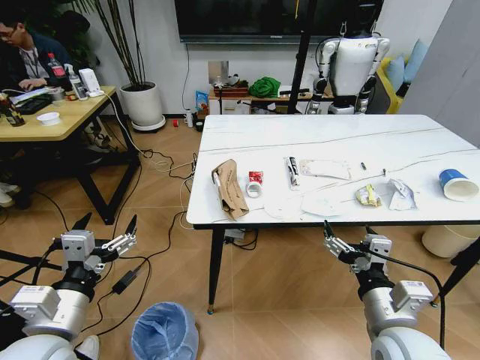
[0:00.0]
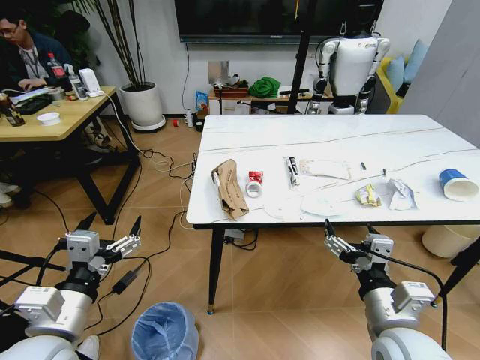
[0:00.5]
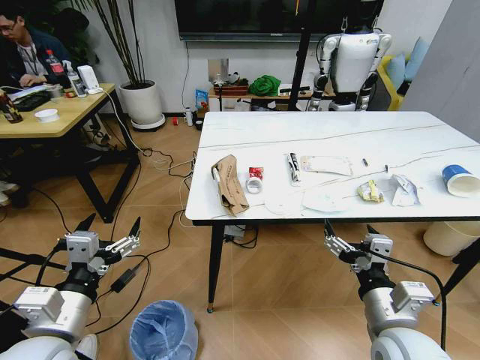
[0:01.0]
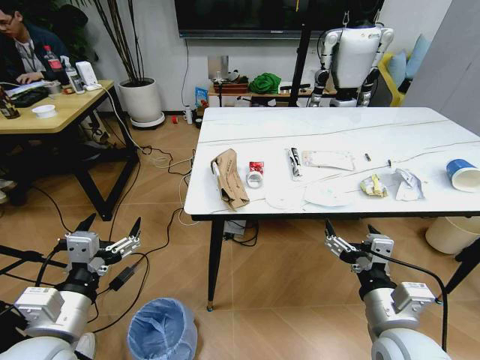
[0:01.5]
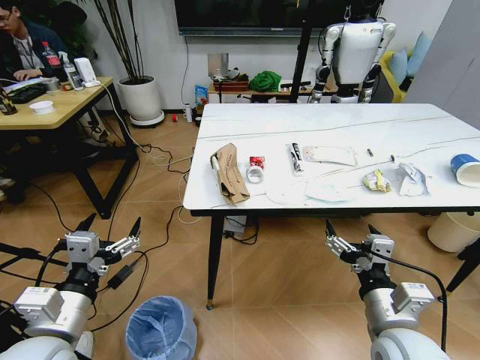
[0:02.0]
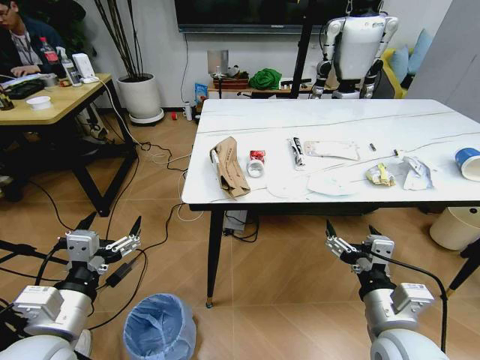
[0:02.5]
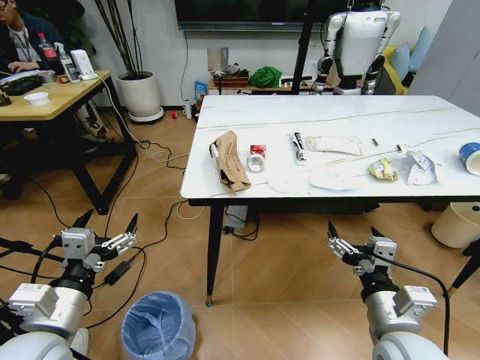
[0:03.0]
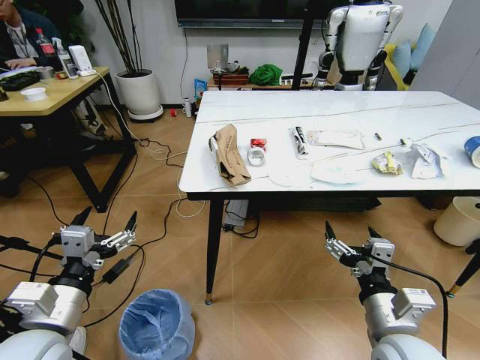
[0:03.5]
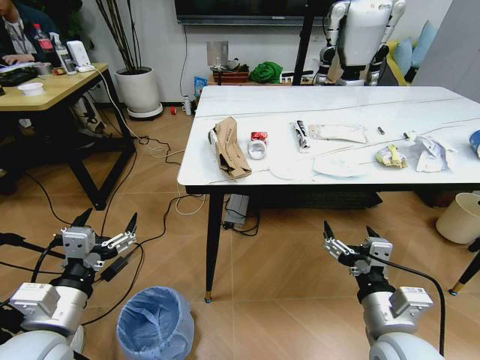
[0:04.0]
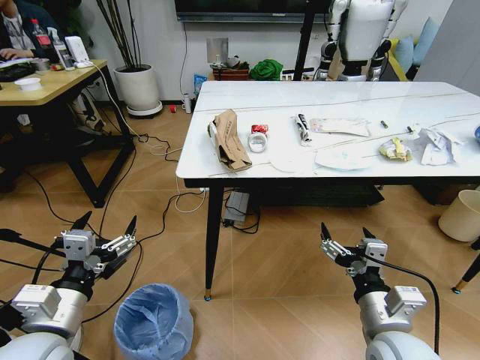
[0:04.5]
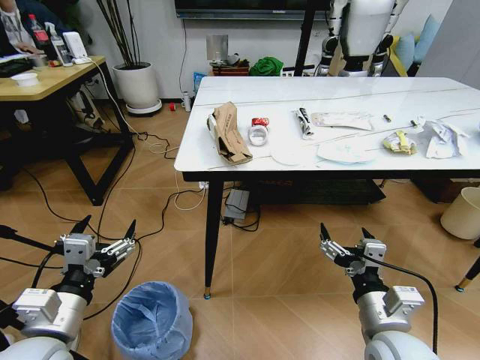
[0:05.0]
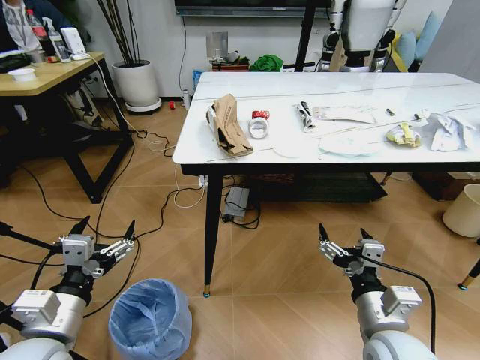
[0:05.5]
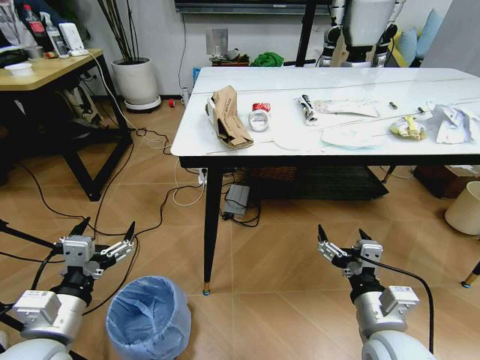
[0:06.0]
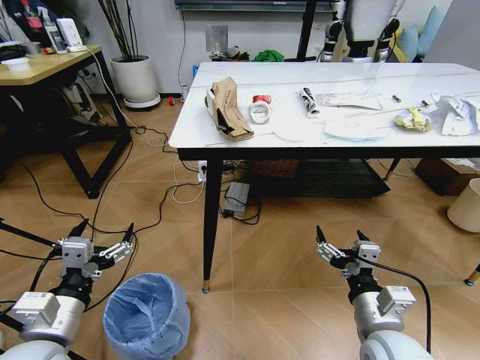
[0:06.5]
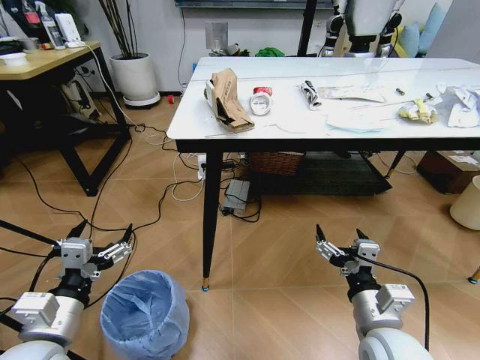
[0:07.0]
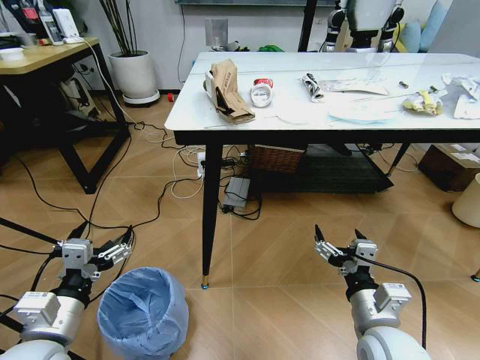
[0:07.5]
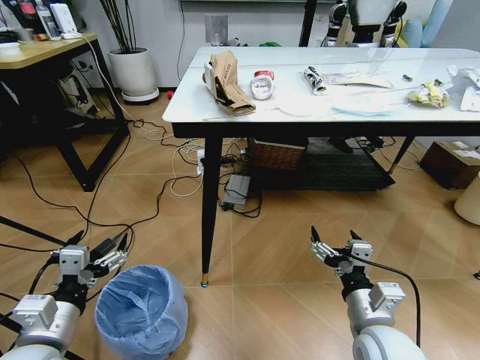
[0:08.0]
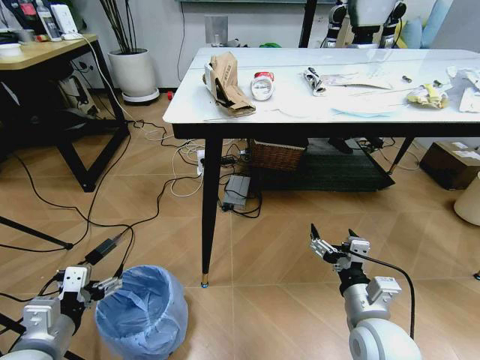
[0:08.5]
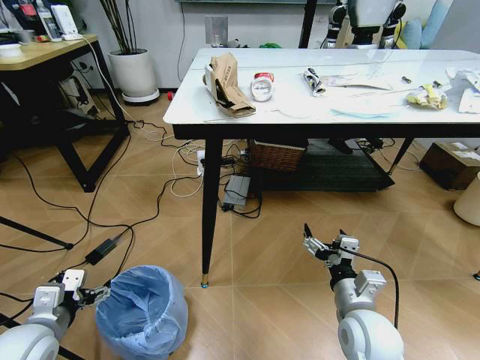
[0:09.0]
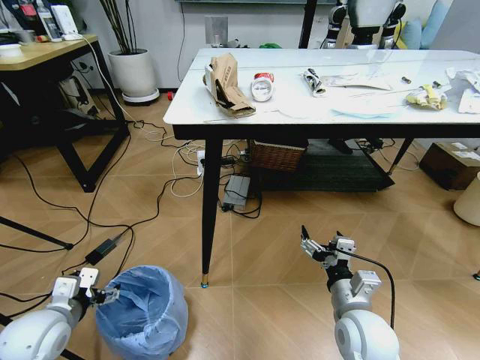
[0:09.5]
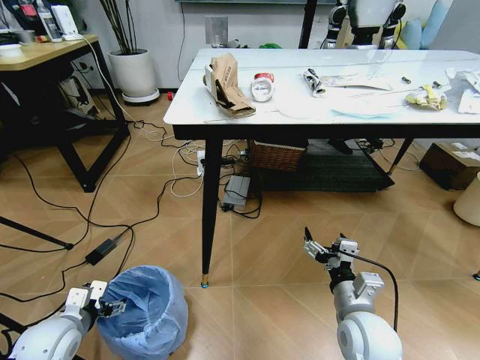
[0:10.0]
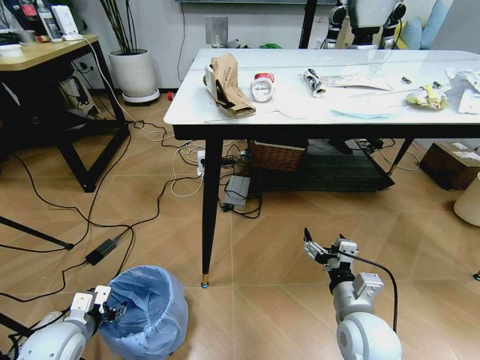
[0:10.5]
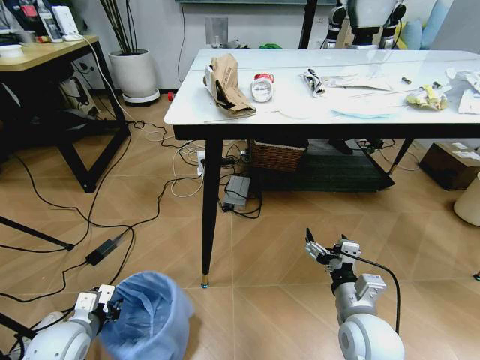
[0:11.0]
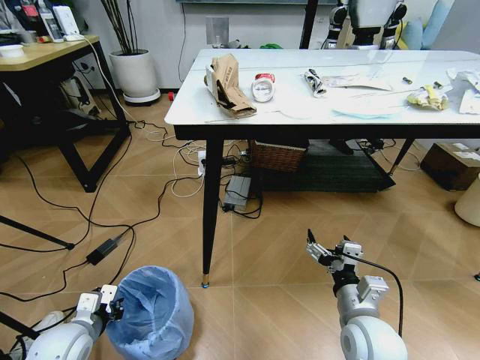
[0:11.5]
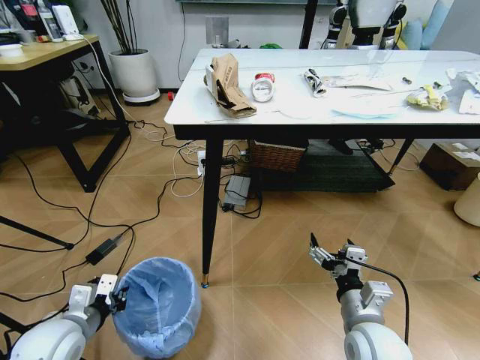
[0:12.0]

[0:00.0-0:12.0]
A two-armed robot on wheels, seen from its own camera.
Task of the whole recording: Pick up the trash bin and place the trash from the table into it.
0:08.0 to 0:10.0: The left gripper moves downward, forward and to the left, about 15 cm.
0:10.0 to 0:12.0: The left gripper is displaced upward by about 5 cm, and closes.

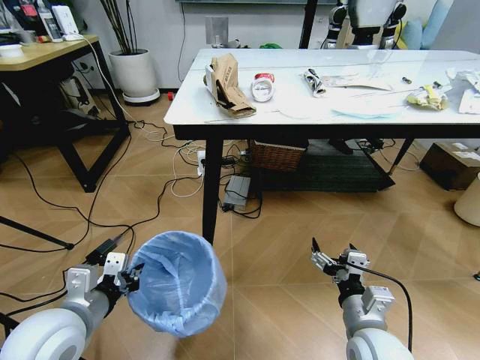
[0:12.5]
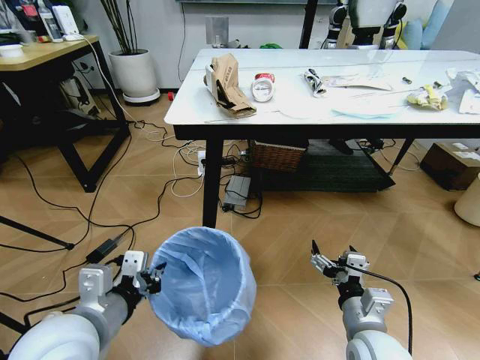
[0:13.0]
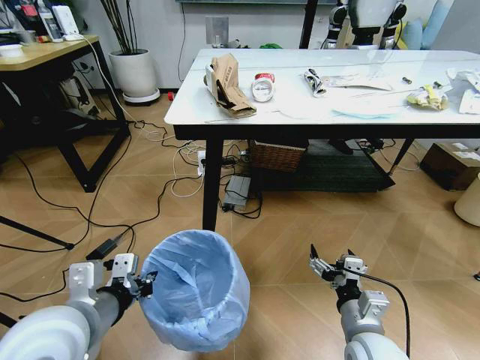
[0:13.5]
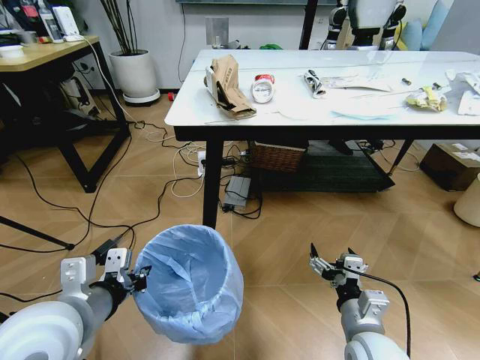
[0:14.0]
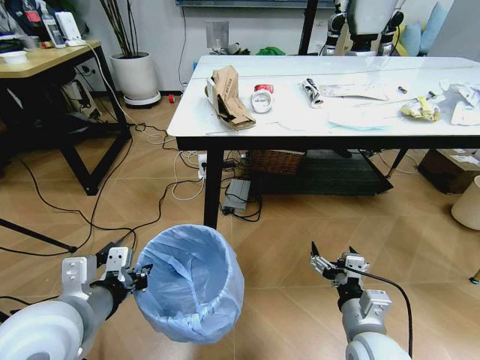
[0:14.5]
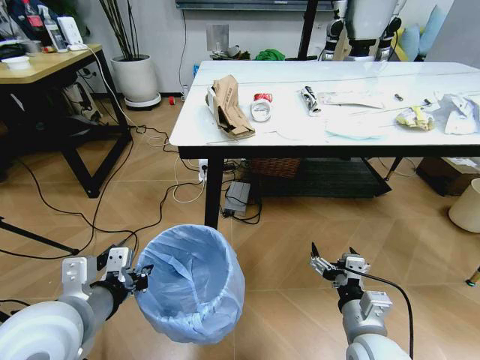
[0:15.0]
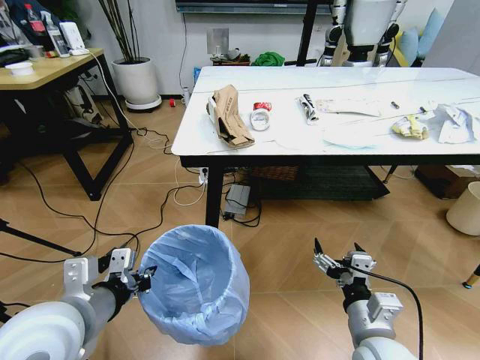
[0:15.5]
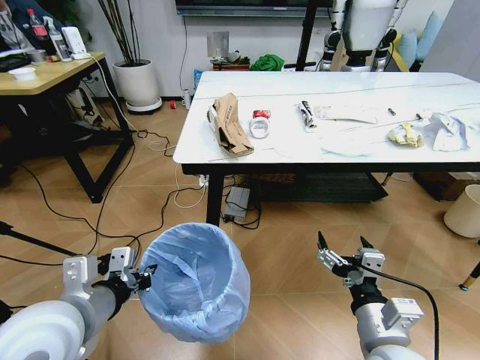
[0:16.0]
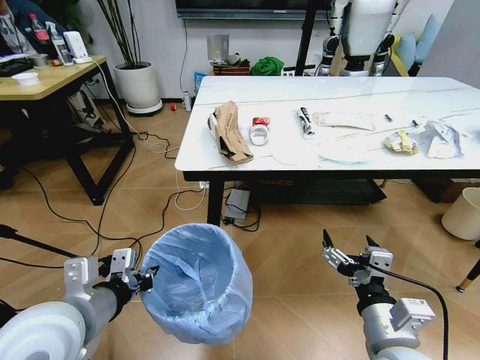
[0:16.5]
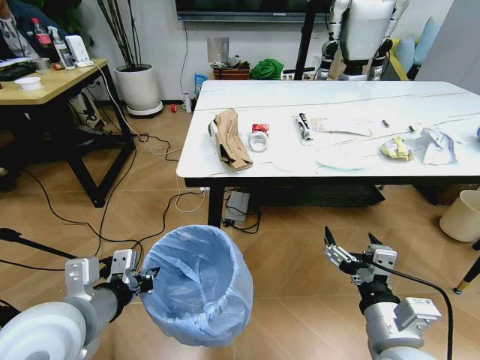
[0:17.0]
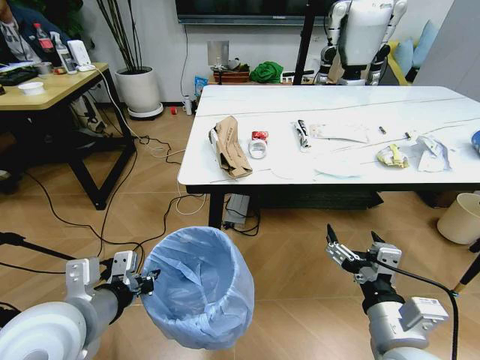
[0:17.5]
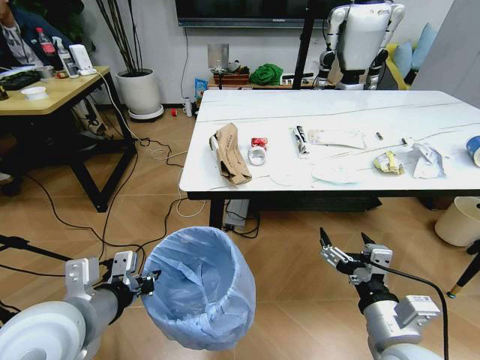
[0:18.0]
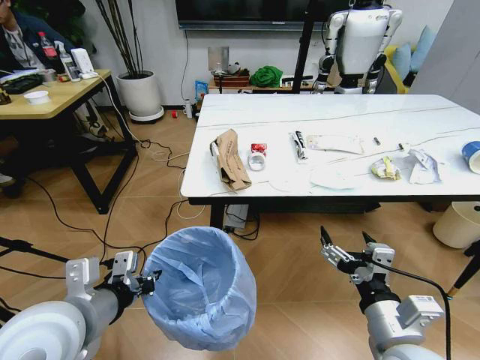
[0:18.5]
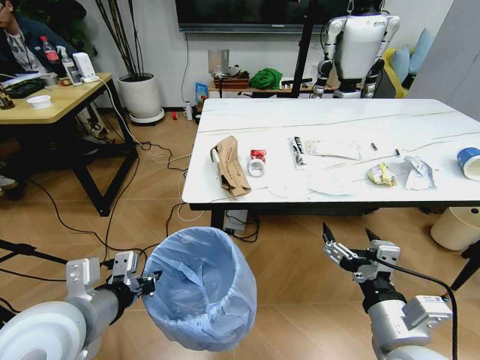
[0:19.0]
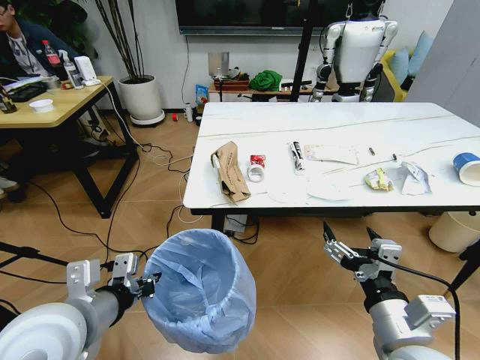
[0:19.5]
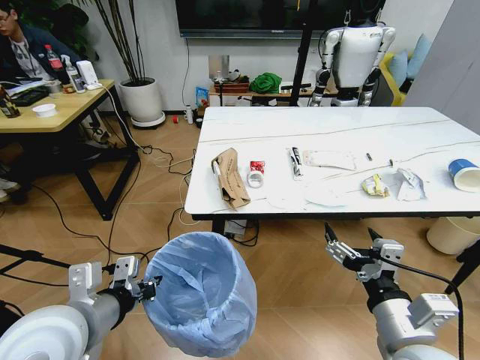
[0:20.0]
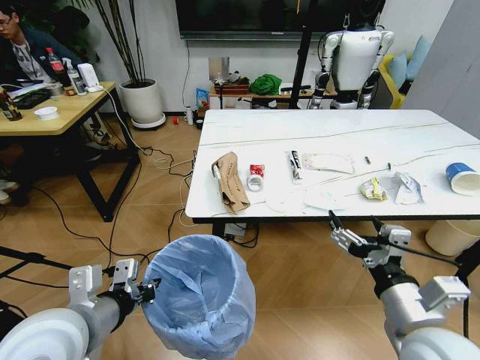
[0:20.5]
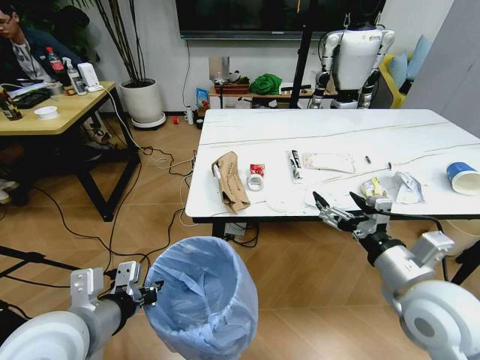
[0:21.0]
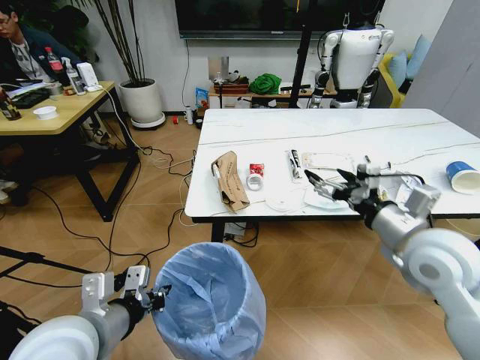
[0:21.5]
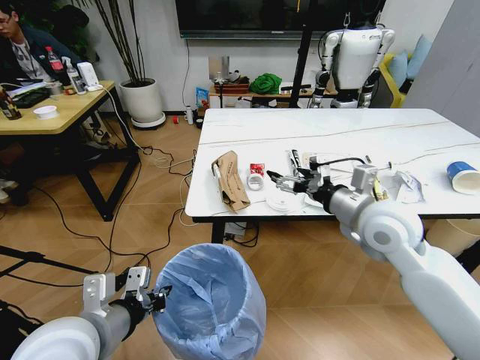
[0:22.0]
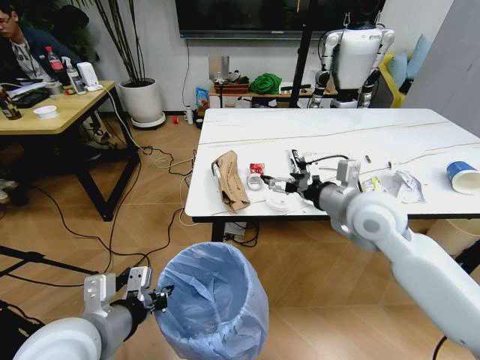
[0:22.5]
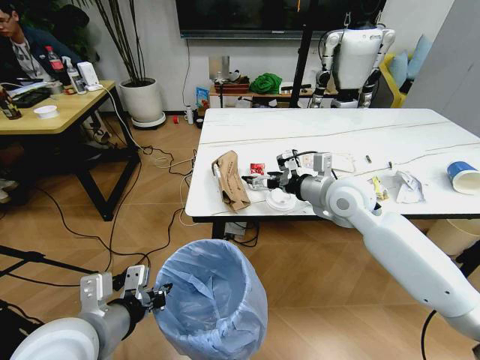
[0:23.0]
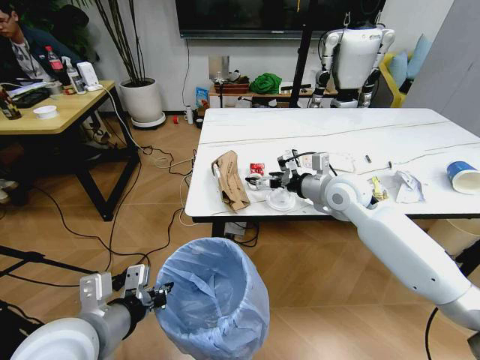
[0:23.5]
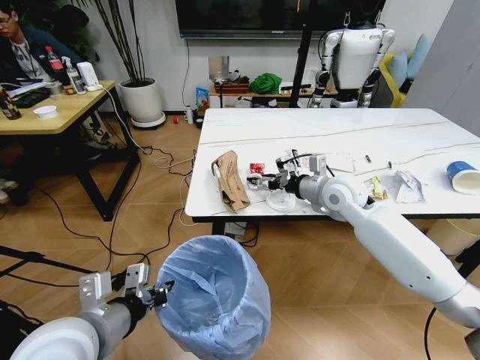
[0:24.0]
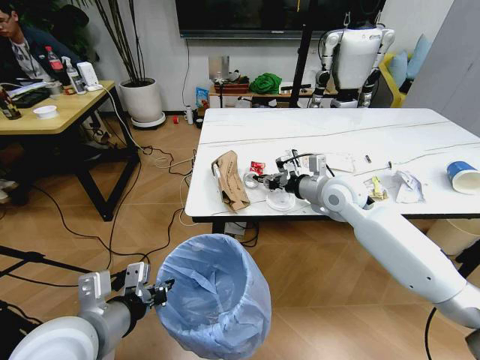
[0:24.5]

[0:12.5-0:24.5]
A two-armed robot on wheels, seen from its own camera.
Task of the whole recording: Pick up the trash bin and place the trash from the table into it.
0:12.5 to 0:14.5: The left gripper shifts some 5 cm upward.
0:14.5 to 0:16.5: The right gripper shifts about 5 cm upward.
0:20.5 to 0:22.5: The right gripper shifts some 20 cm forward.
0:22.5 to 0:24.5: The right gripper heads forward and downward, covering roughly 10 cm, and closes up.

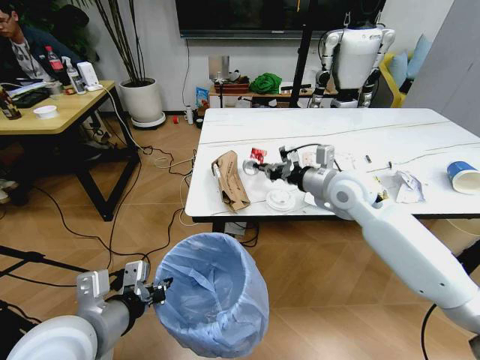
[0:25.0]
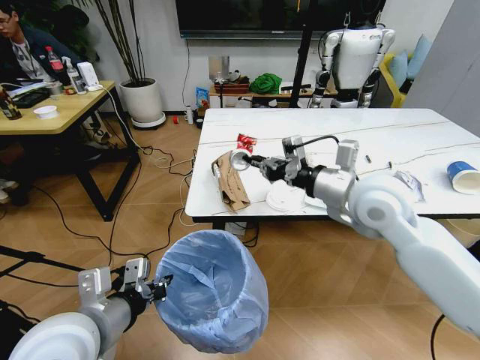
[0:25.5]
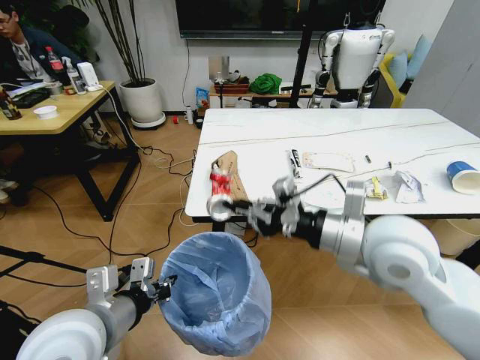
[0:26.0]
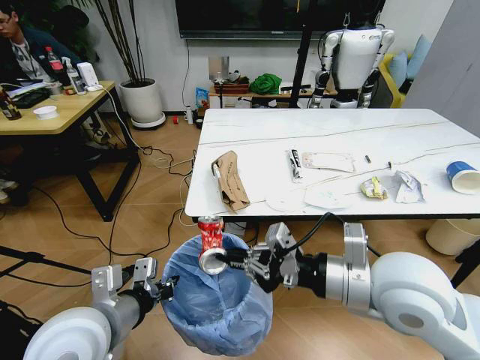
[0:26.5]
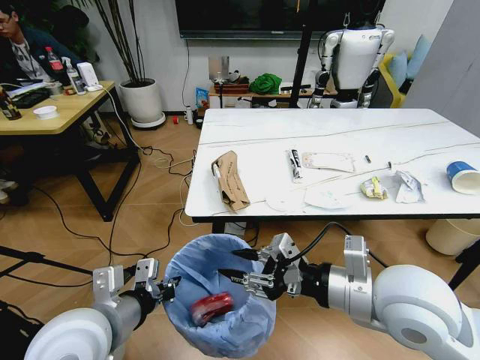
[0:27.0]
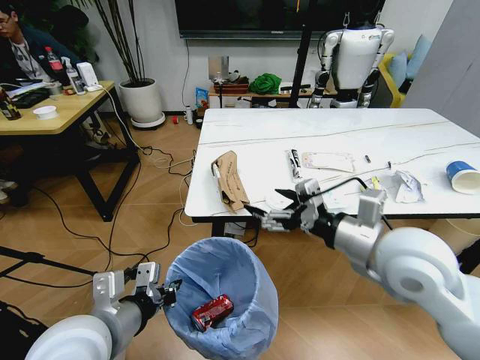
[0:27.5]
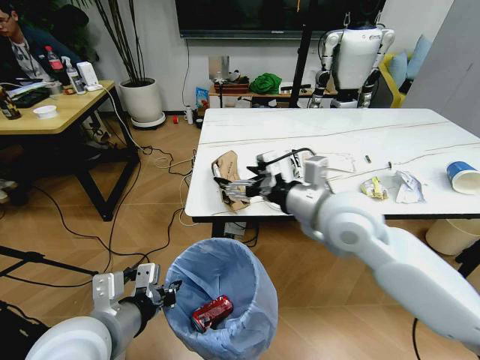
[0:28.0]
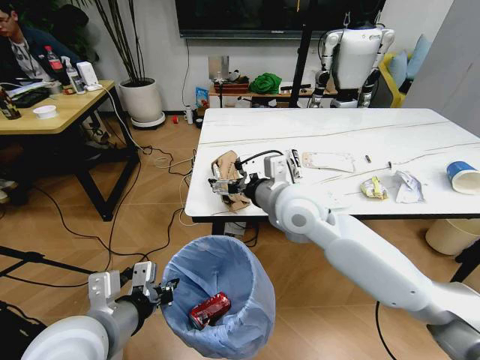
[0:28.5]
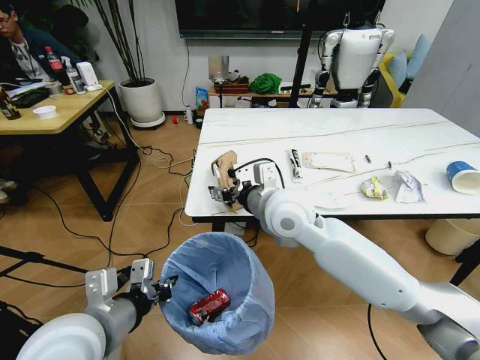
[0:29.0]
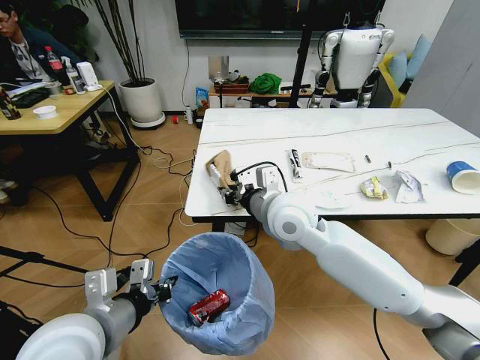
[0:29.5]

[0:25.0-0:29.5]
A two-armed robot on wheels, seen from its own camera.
Task of the whole recording: Pick up the trash bin and place the trash from the table into it.
0:25.0 to 0:27.0: The right gripper is displaced backward by roughly 25 cm, and opens.
0:27.0 to 0:29.5: The right gripper travels forward and to the left by about 20 cm, and opens, then closes once more.
